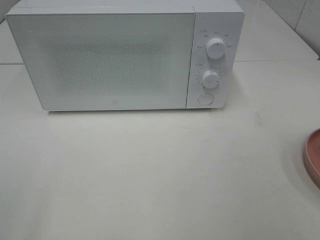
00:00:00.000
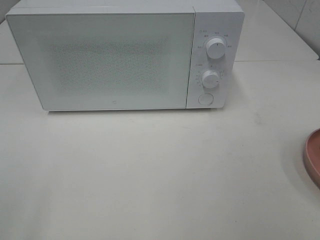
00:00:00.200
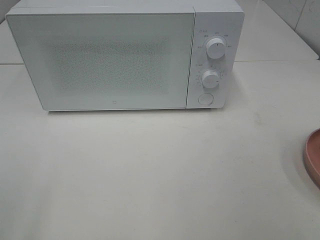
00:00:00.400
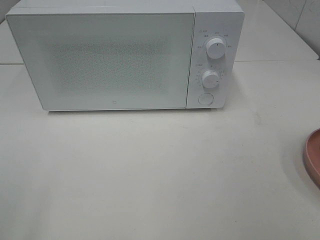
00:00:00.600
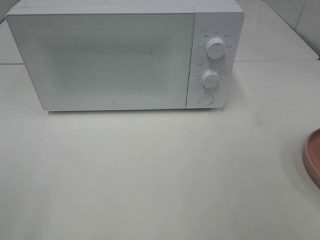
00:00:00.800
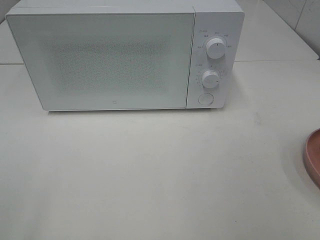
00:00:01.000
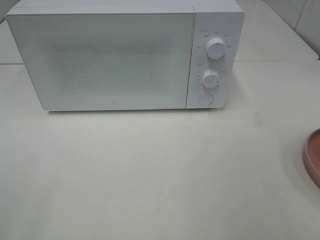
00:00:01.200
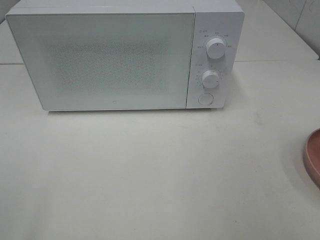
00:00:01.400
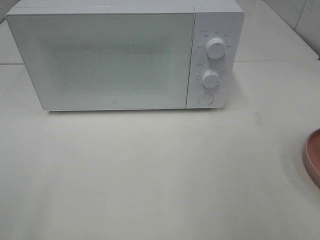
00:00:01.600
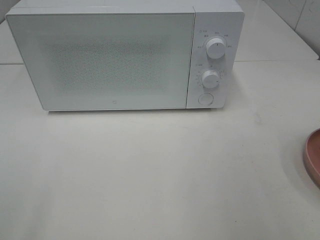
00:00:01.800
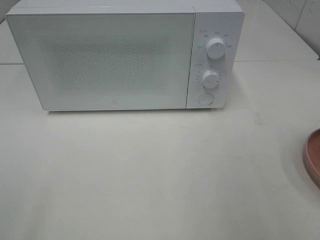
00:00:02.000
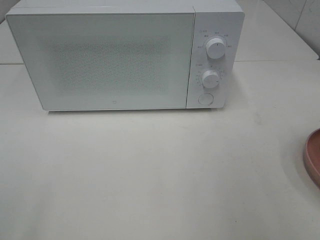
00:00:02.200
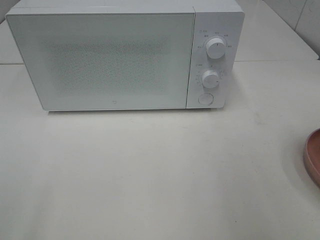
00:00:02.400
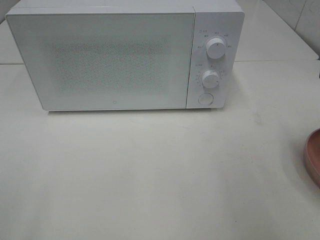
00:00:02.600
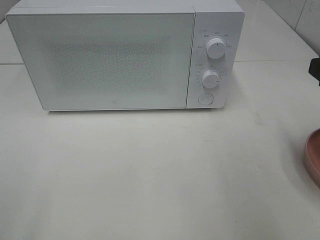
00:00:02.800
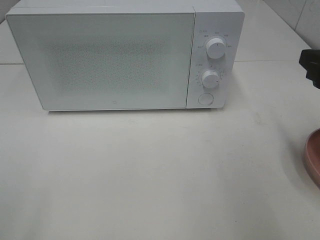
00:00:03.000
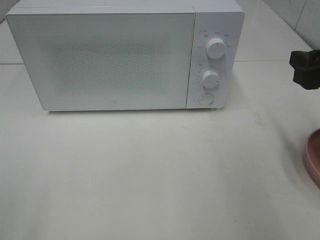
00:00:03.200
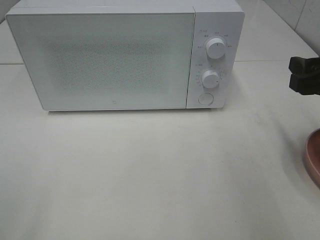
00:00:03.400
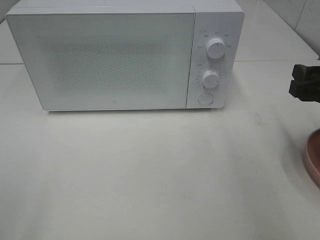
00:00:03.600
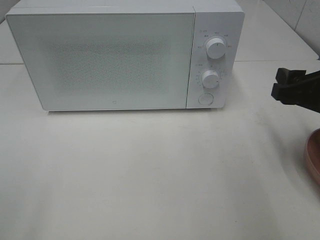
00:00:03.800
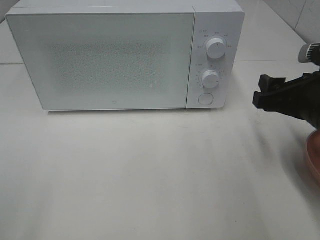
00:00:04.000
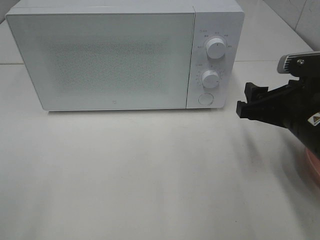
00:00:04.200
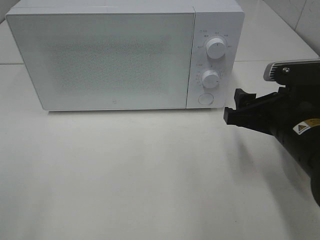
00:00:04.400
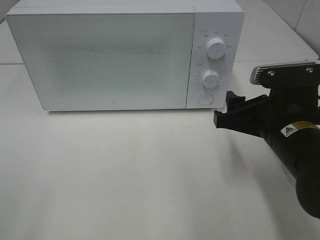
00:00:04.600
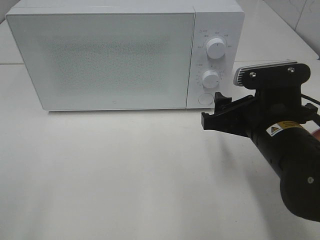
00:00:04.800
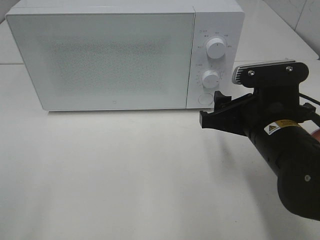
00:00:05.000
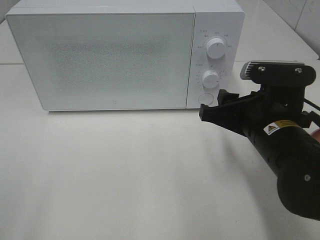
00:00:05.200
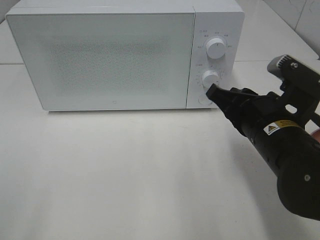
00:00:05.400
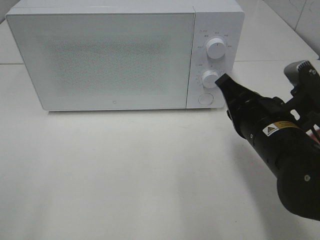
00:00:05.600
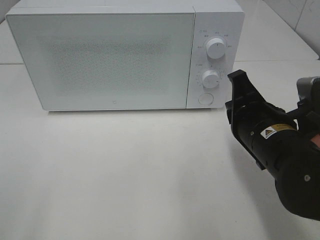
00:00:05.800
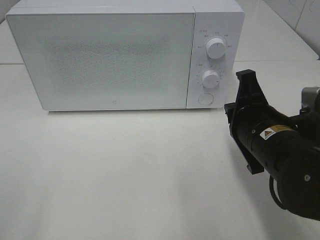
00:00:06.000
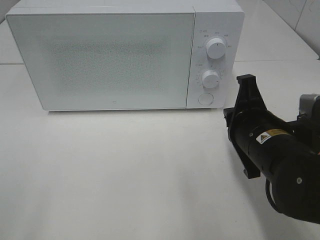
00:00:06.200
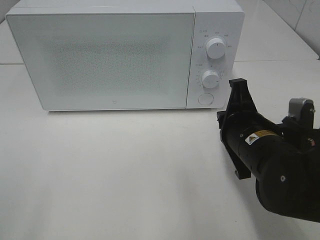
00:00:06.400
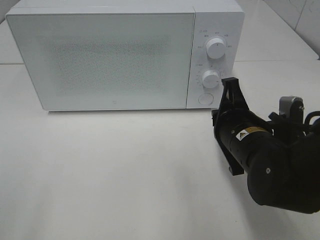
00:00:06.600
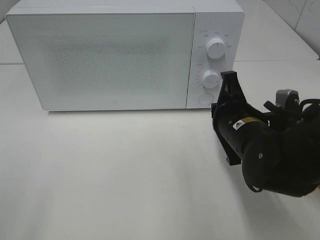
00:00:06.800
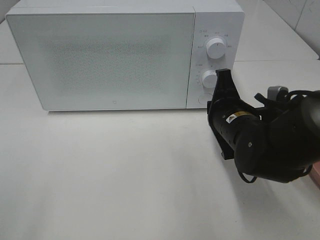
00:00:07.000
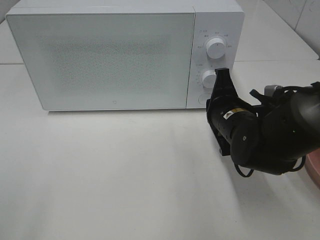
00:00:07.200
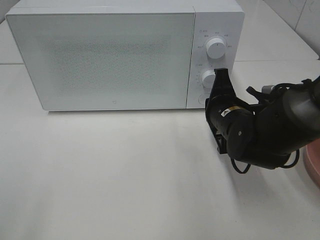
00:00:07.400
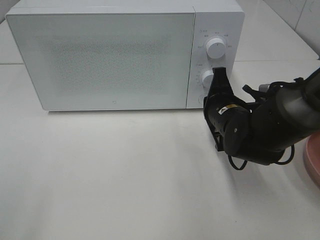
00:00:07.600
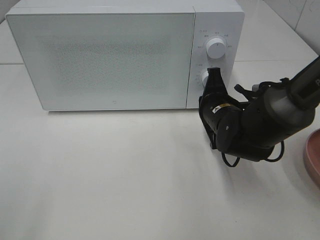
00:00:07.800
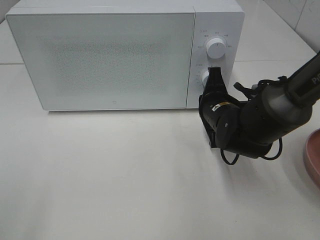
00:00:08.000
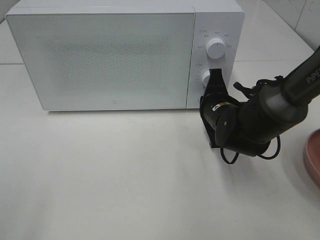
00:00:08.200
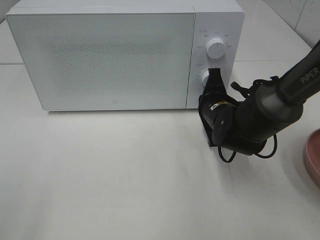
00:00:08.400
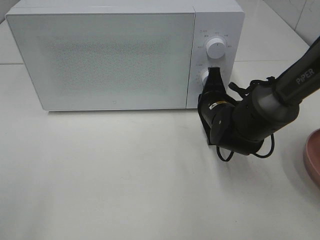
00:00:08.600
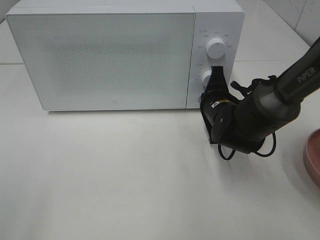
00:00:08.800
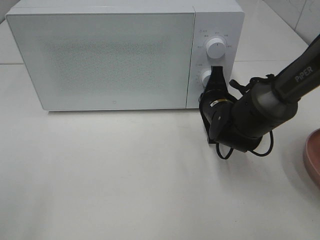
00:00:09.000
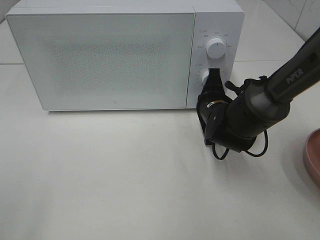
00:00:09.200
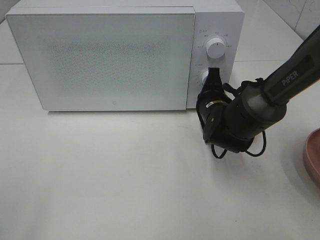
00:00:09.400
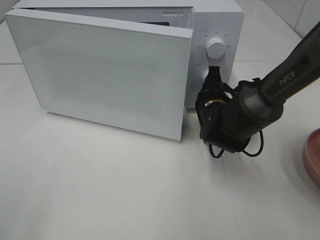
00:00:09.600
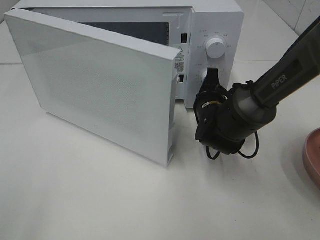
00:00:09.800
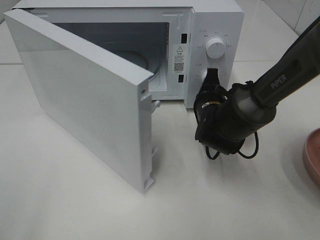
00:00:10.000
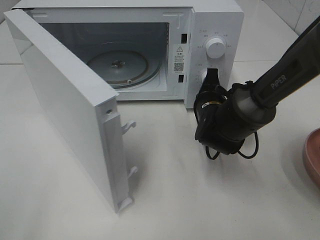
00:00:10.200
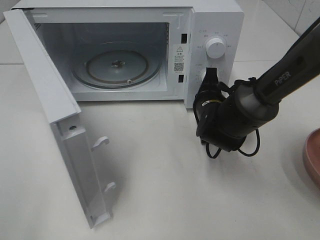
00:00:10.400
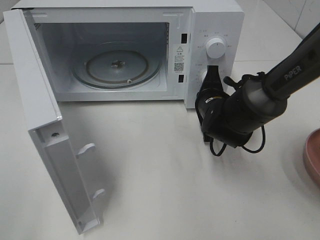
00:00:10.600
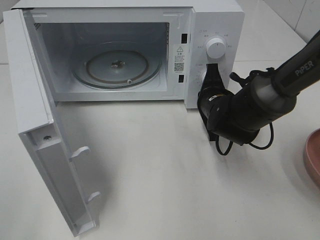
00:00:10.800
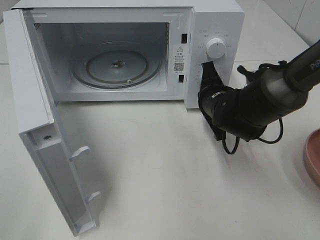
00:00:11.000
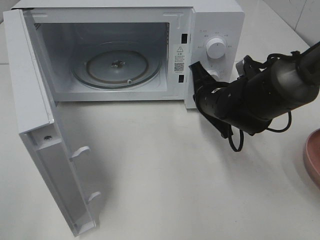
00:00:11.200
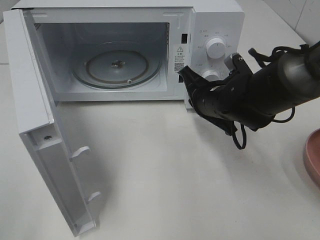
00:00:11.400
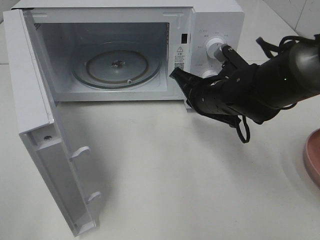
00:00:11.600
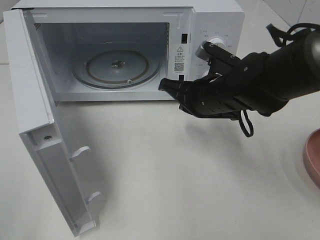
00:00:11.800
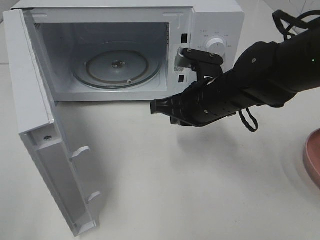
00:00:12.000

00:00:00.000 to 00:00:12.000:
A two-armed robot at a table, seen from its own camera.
Task of the whole recording: Heat the burger.
Step, 00:00:00.000 to 00:00:11.200: Right hand: press the switch.
00:00:01.600 to 00:00:03.000: The right gripper shifts approximately 15 cm forward and downward.
00:00:03.000 to 00:00:04.400: The right gripper goes roughly 10 cm downward and to the left.
00:00:04.400 to 00:00:06.000: The right gripper closes its fingers.
00:00:06.000 to 00:00:07.600: The right gripper travels forward and downward by approximately 10 cm.
00:00:07.600 to 00:00:09.000: There are only small adjustments of the grippers.
00:00:10.400 to 00:00:12.000: The right gripper shifts approximately 10 cm upward and backward.

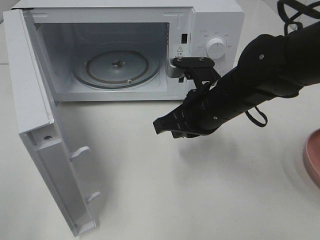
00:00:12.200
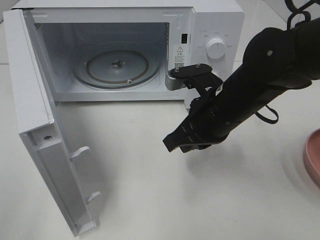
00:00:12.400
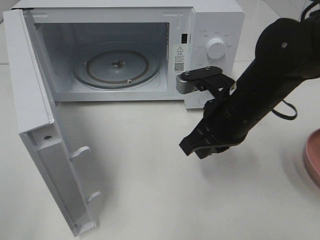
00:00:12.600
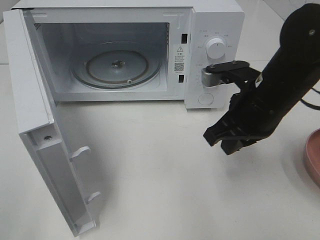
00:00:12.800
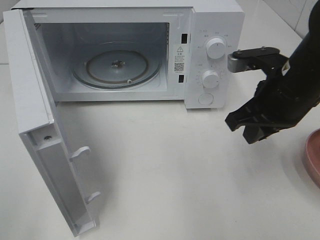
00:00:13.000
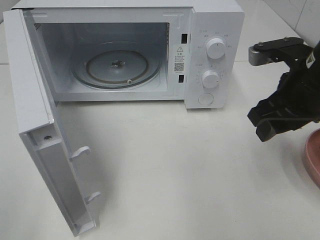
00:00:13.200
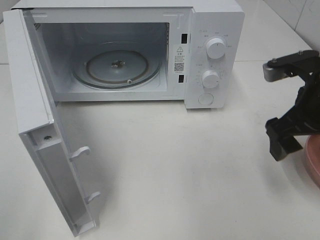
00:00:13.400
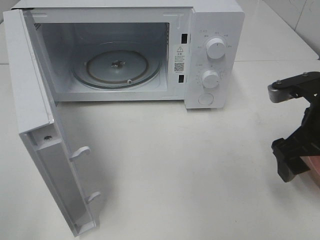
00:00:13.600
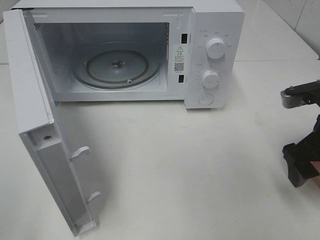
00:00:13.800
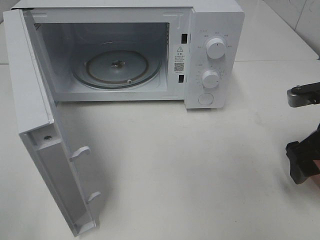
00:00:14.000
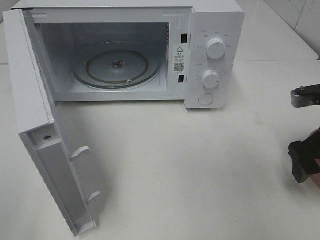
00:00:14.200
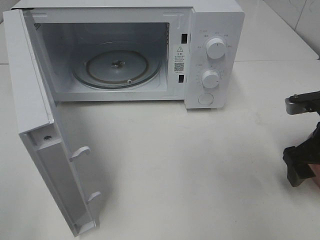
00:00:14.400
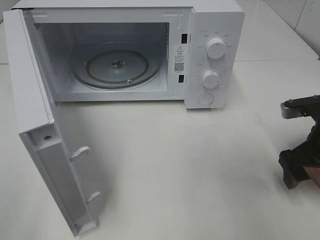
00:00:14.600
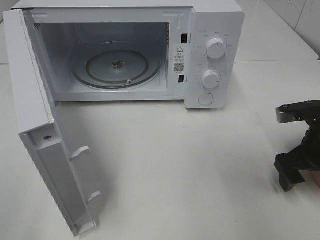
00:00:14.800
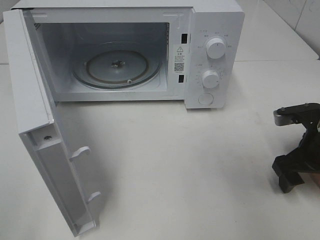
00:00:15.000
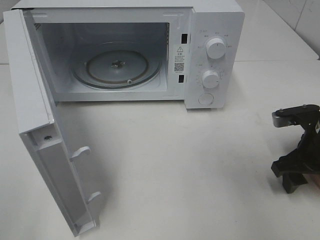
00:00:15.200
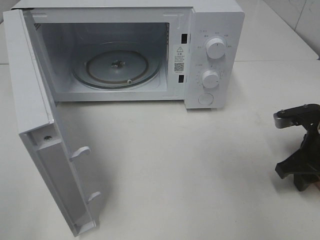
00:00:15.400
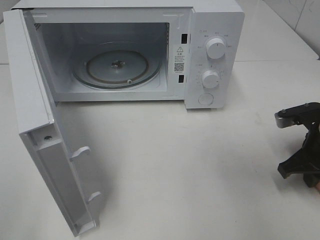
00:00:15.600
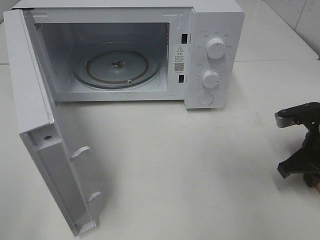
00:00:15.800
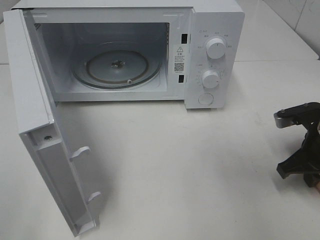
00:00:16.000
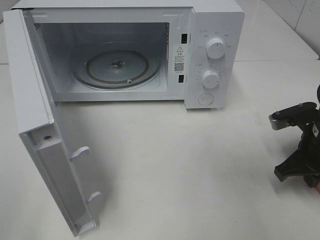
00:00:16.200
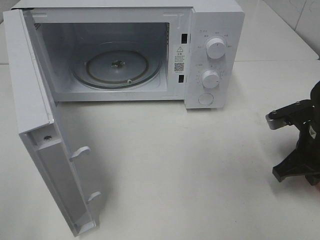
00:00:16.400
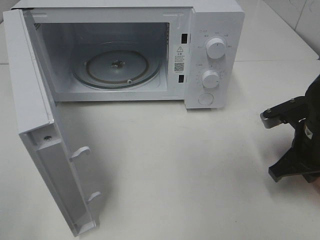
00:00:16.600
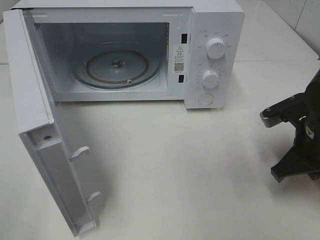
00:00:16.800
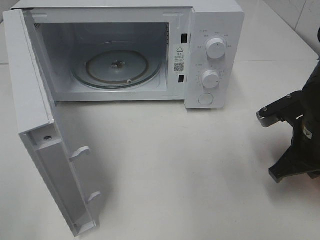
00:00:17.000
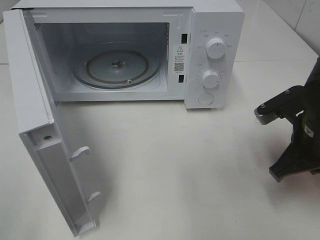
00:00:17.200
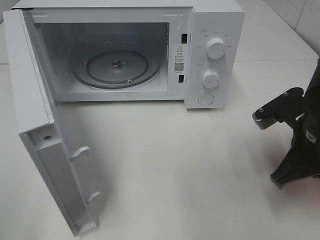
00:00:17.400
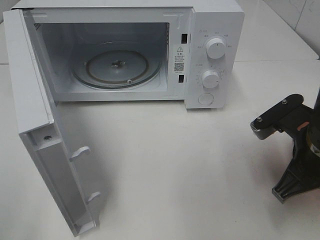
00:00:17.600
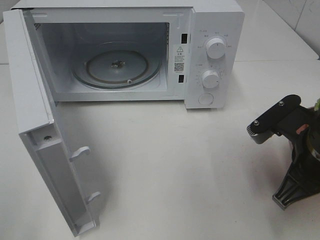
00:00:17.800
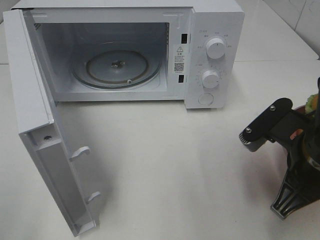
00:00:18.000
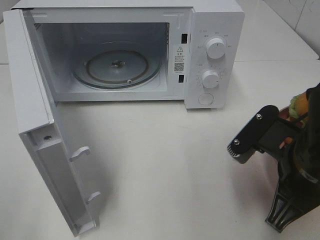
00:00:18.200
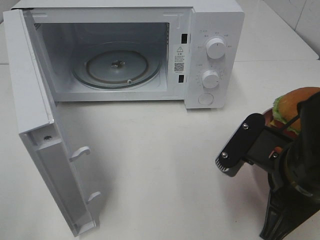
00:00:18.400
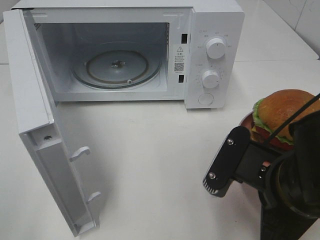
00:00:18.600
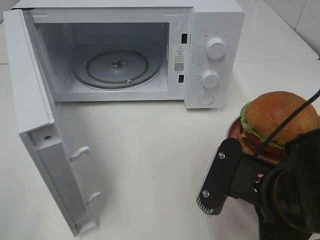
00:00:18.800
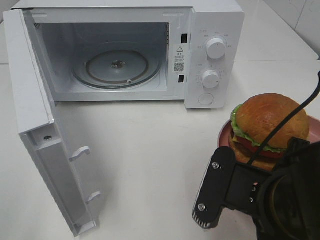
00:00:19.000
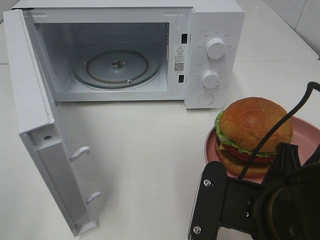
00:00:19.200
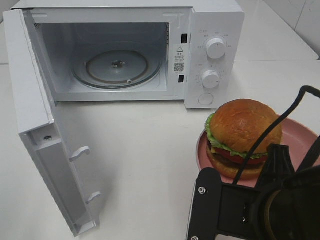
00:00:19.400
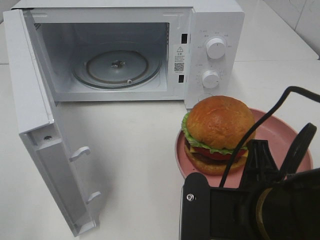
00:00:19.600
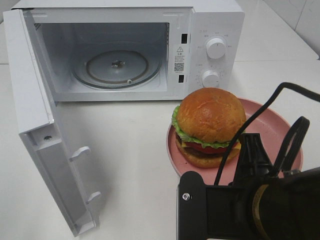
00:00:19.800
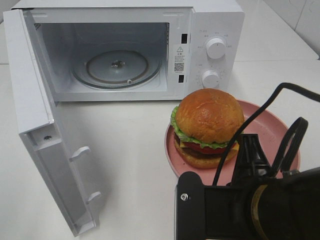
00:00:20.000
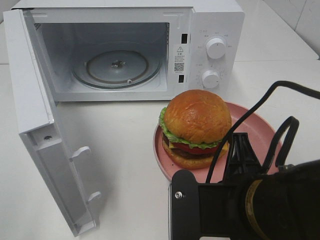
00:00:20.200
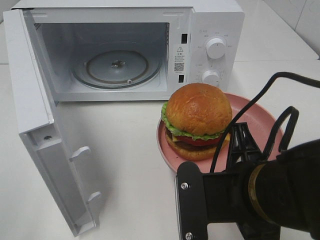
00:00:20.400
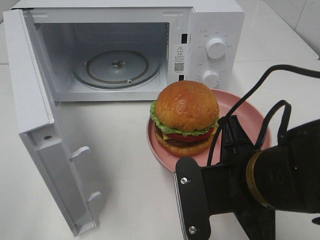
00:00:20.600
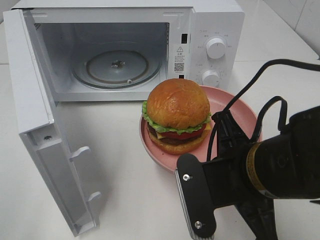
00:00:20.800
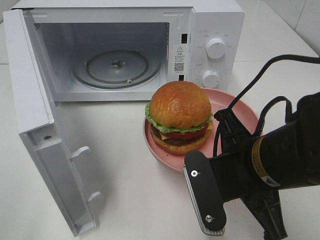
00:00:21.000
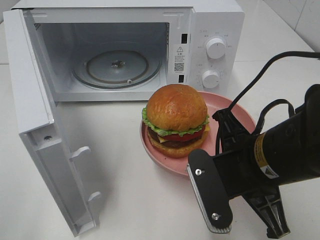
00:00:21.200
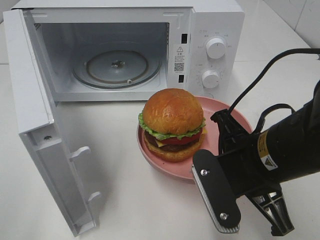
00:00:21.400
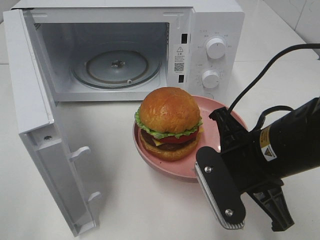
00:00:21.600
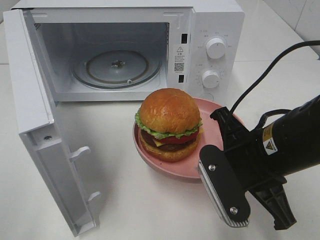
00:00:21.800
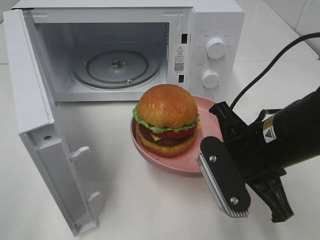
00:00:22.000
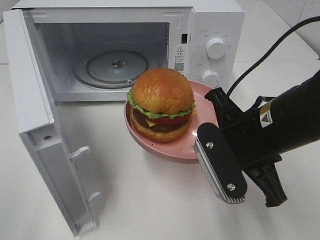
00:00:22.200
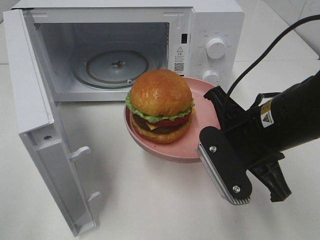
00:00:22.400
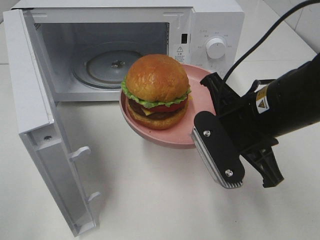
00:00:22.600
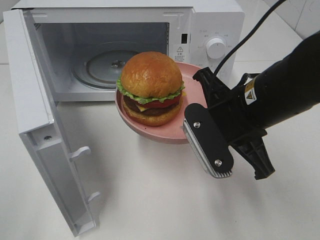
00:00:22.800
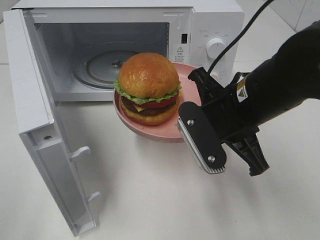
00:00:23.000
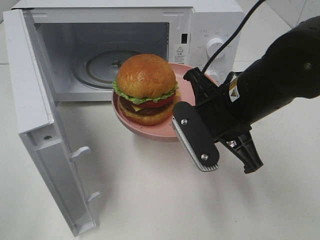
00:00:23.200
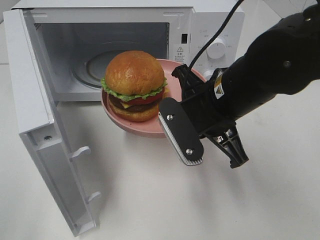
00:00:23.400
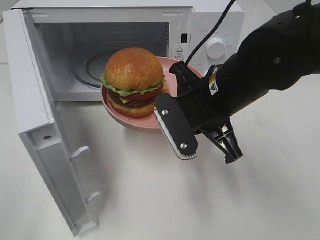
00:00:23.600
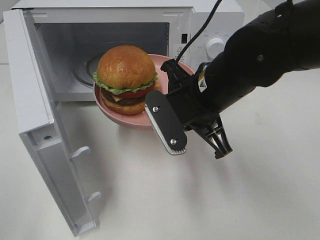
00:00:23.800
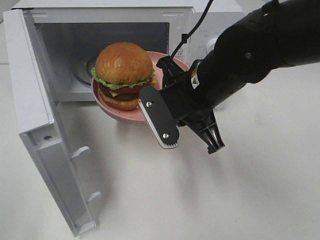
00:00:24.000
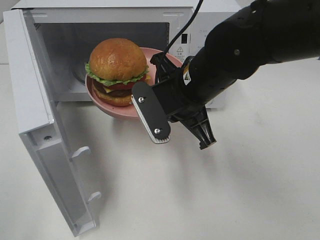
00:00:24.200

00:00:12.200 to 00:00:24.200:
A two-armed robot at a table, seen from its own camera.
Task of the whole recording: Heat the burger.
Step, 00:00:12.200 to 00:00:15.800: Right hand: grab the plate with the hamburger.
00:00:12.200 to 00:00:13.800: The right gripper goes some 15 cm to the right, and opens.
00:00:13.800 to 00:00:15.200: The right gripper heads downward, covering some 5 cm.
00:00:15.200 to 00:00:16.600: The right gripper closes up.
00:00:16.600 to 00:00:18.200: The right gripper goes about 10 cm backward and to the left.
00:00:18.200 to 00:00:19.800: The right gripper moves to the left and backward, approximately 10 cm.
00:00:19.800 to 00:00:21.200: The right gripper shifts roughly 5 cm forward.
00:00:21.200 to 00:00:22.600: The right gripper changes place by about 5 cm.
00:00:22.600 to 00:00:24.200: The right gripper heads to the left and forward, covering approximately 10 cm.
